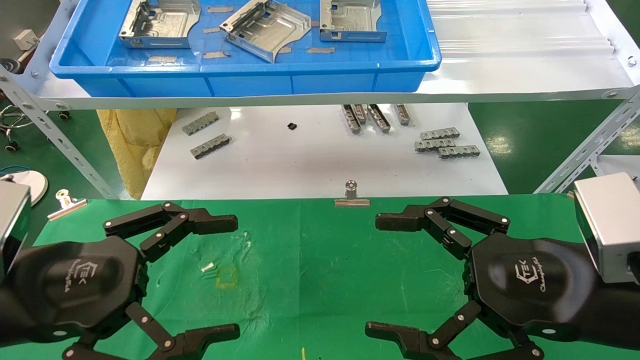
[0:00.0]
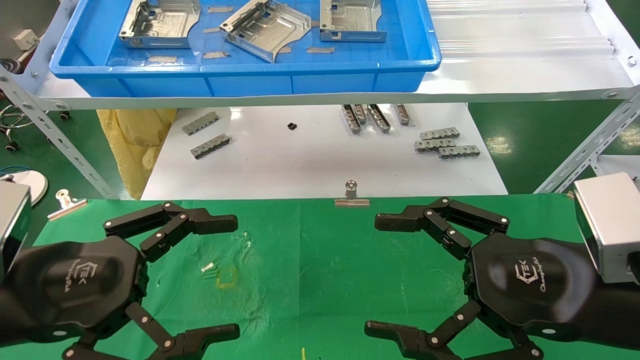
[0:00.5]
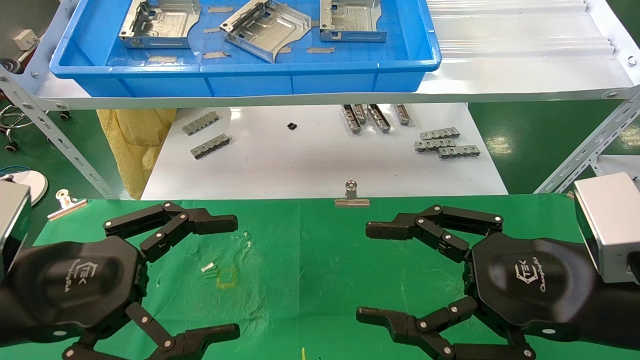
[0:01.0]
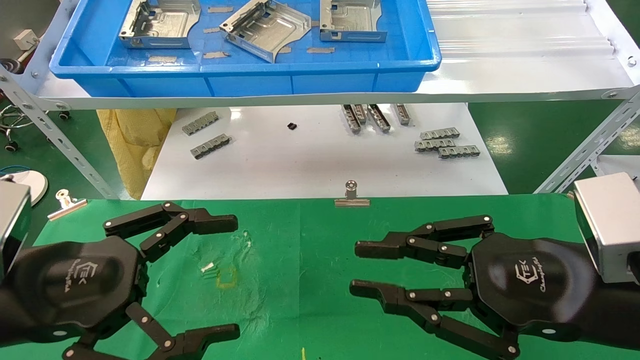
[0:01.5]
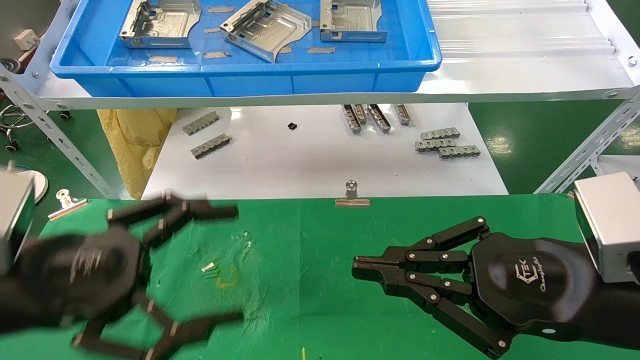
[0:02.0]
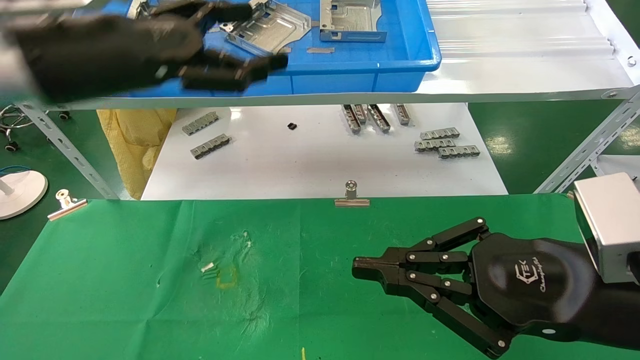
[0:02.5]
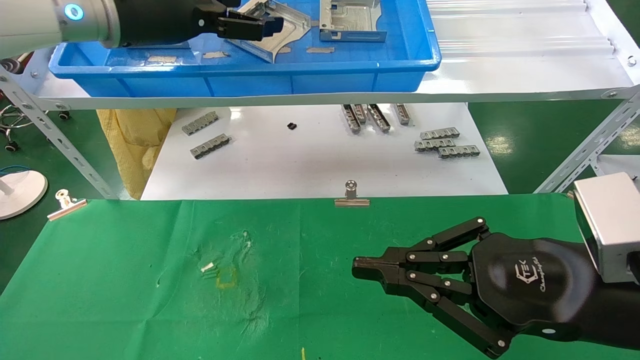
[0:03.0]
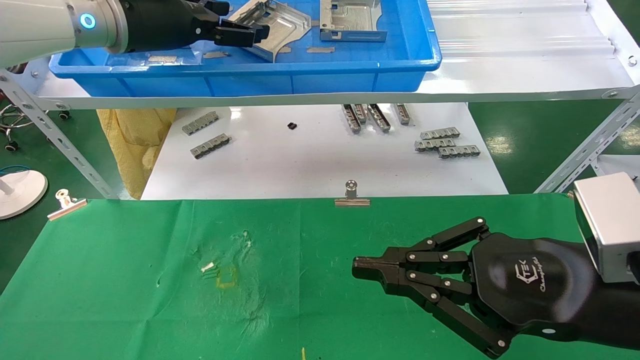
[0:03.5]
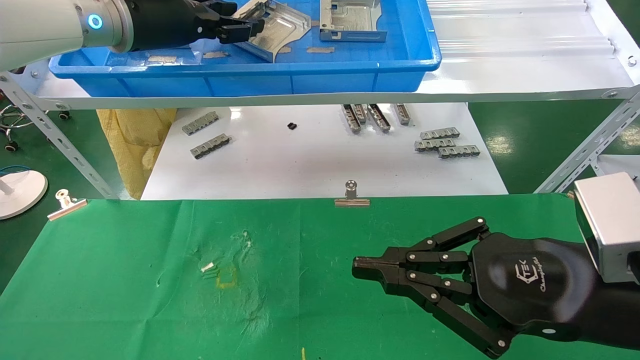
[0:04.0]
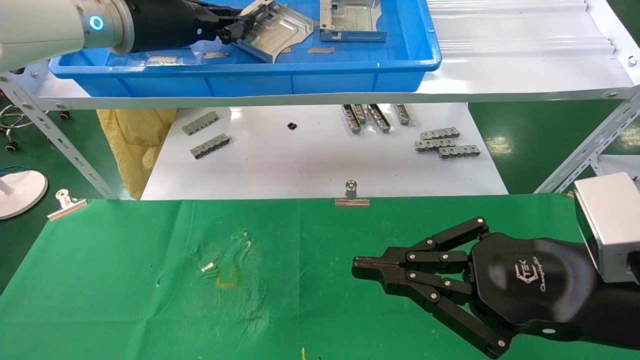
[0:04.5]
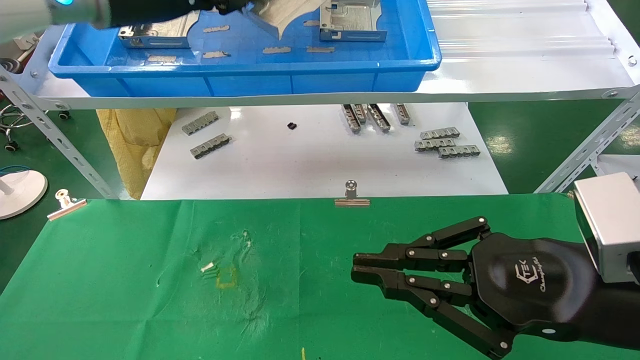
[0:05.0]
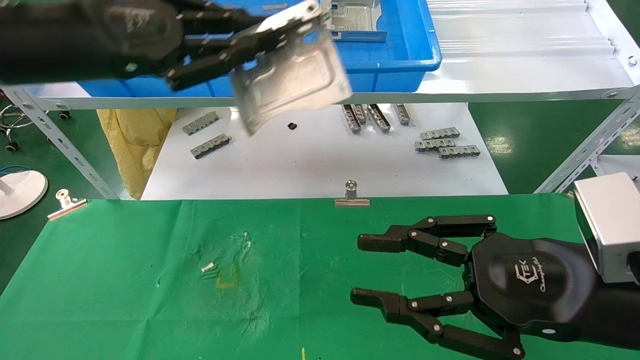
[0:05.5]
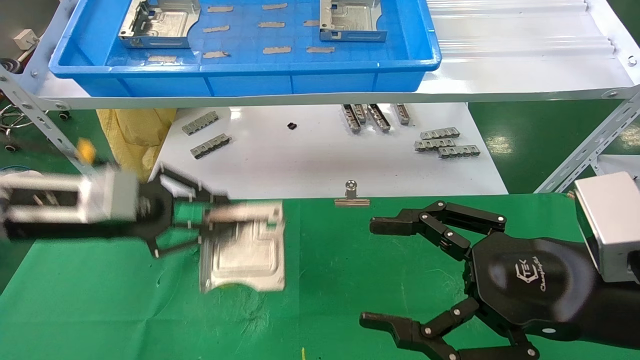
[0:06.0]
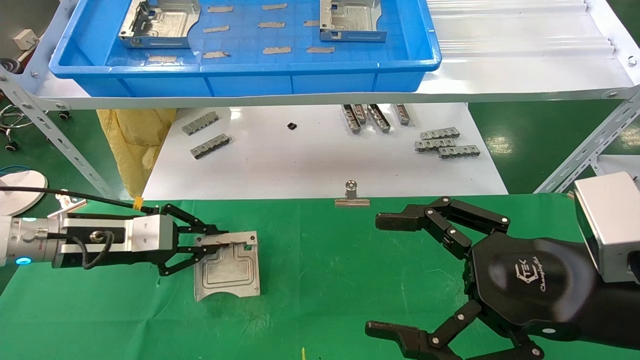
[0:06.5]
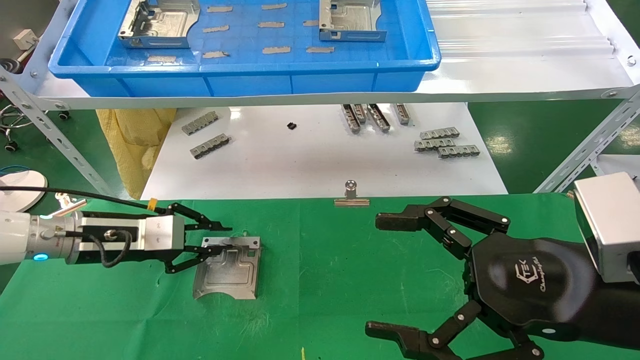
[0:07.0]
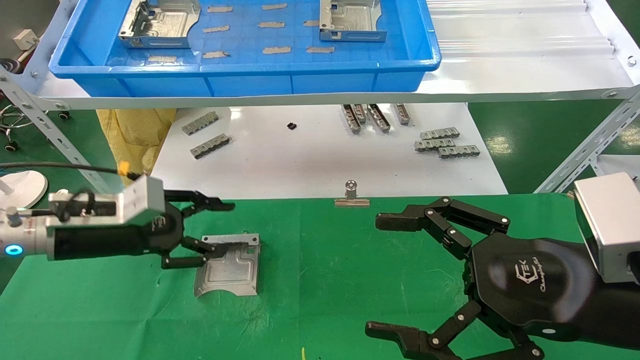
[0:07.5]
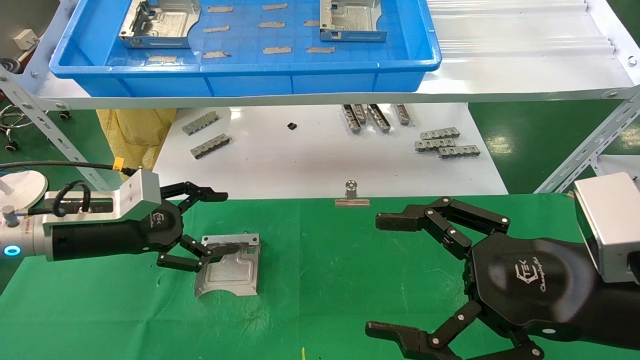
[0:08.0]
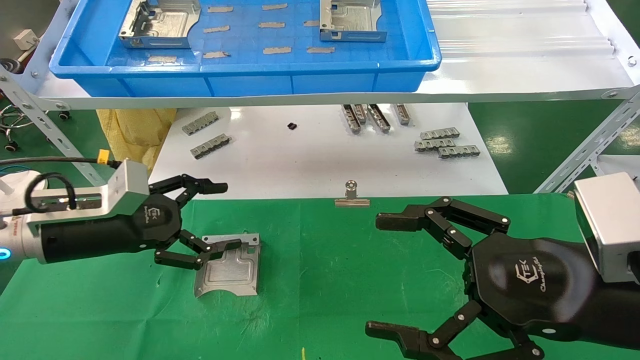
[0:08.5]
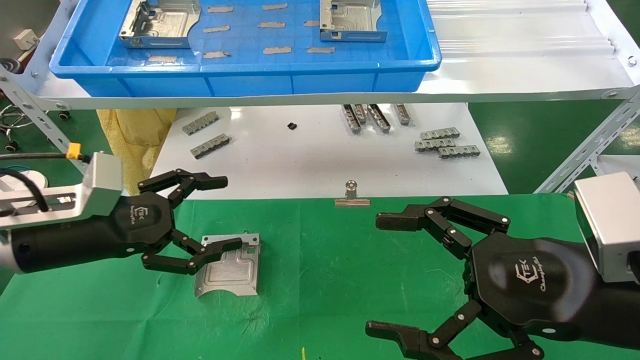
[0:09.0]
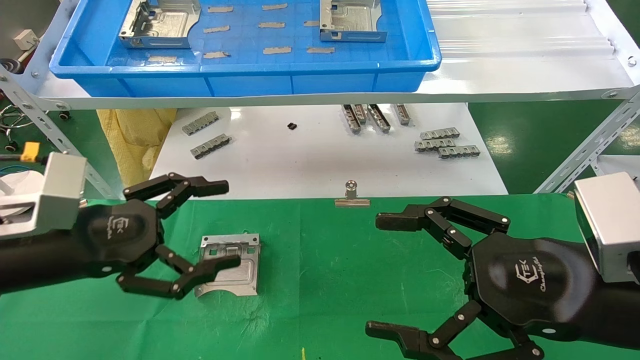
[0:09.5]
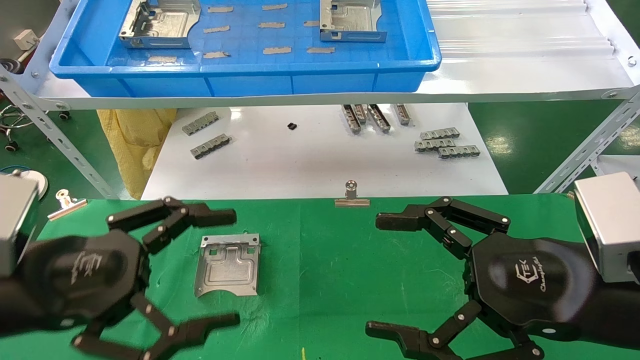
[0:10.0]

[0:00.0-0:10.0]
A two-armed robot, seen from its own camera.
Task of the whole recording: use the mechanical arm to pick up the parts and place them on the table.
Step, 0:02.5 to 0:04.5: Pick up the hard drive bracket from the feeding area.
Step, 0:05.0 to 0:06.5: Place the hard drive bracket into the box.
0:00.0 to 0:02.0: The right gripper closes.
0:02.0 to 0:04.0: The left gripper heads forward and upward, covering some 30 cm, and closes.
0:04.0 to 0:06.0: The left gripper heads downward, backward and to the left, covering some 20 cm, and closes up, while the right gripper opens up.
0:06.0 to 0:08.0: The left gripper travels downward by some 5 cm, and opens its fingers.
0:08.0 to 0:10.0: The left gripper travels backward by about 15 cm.
